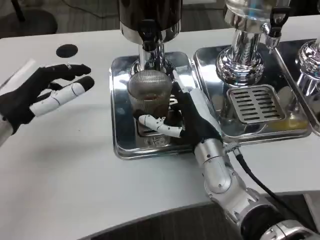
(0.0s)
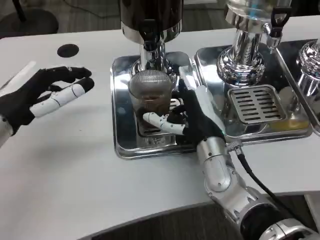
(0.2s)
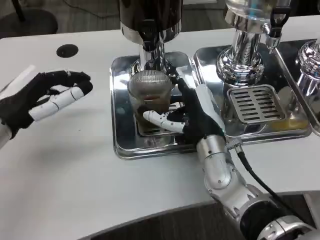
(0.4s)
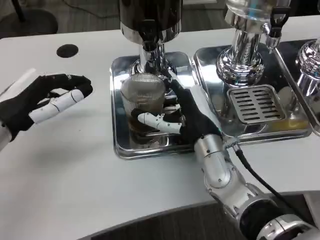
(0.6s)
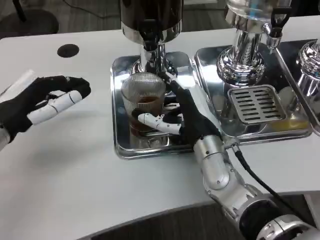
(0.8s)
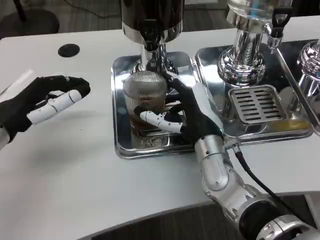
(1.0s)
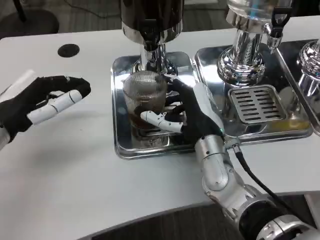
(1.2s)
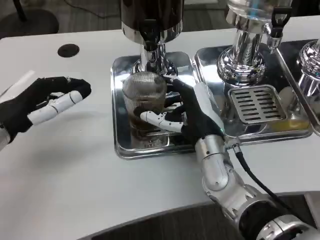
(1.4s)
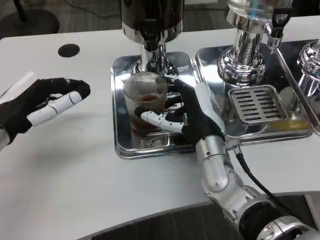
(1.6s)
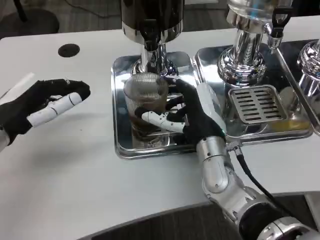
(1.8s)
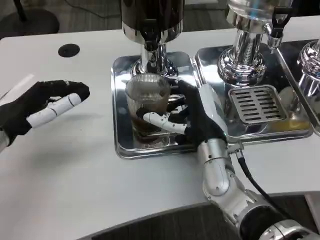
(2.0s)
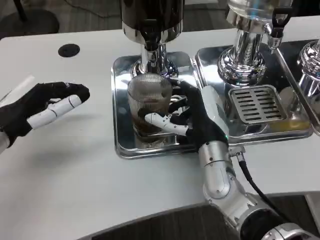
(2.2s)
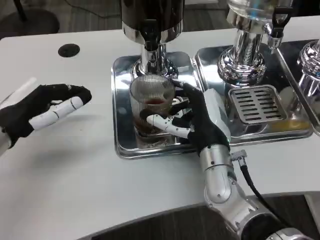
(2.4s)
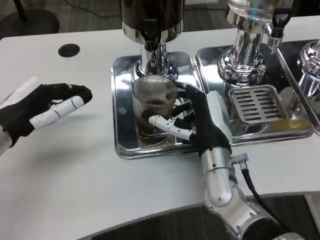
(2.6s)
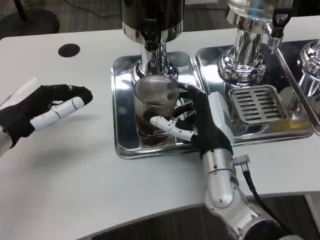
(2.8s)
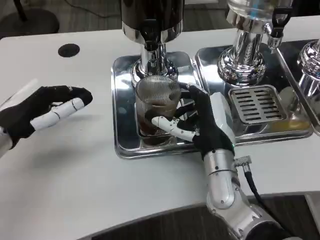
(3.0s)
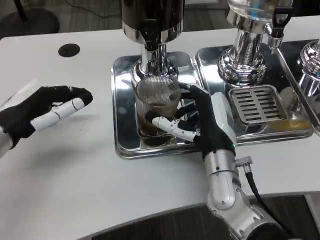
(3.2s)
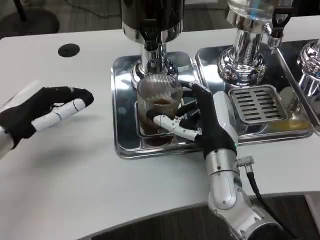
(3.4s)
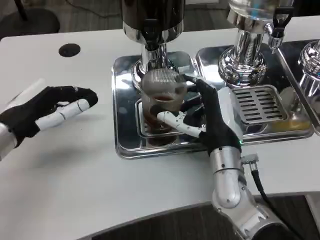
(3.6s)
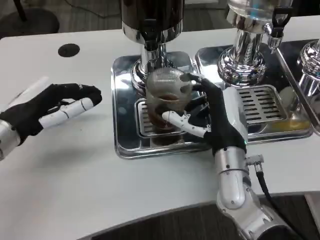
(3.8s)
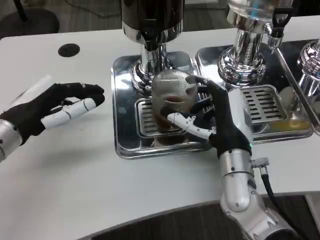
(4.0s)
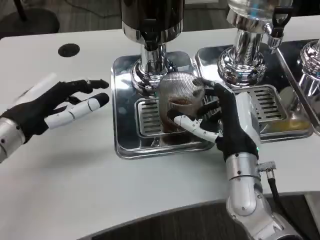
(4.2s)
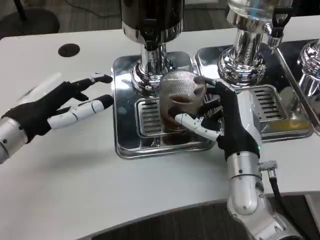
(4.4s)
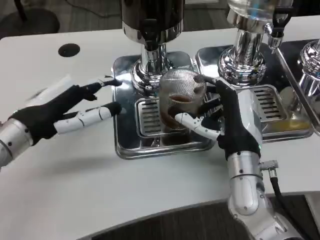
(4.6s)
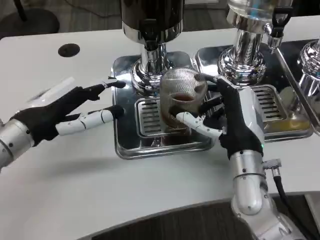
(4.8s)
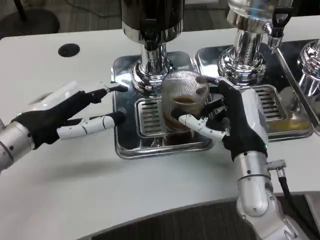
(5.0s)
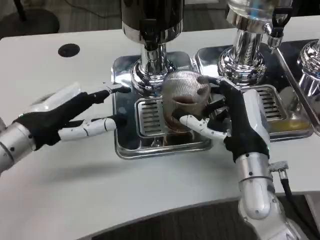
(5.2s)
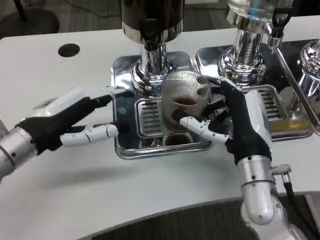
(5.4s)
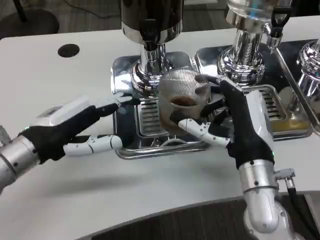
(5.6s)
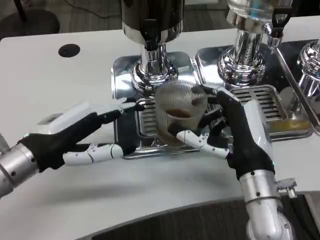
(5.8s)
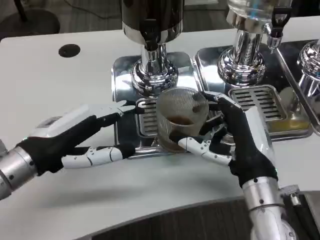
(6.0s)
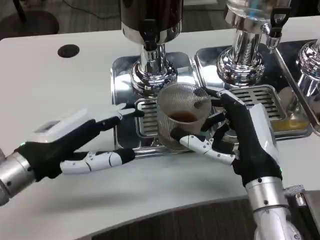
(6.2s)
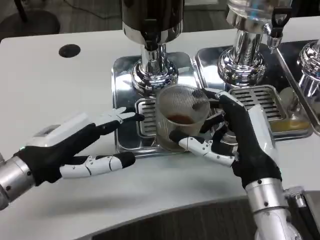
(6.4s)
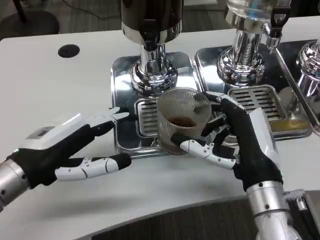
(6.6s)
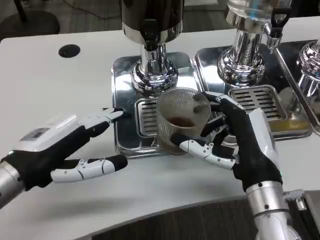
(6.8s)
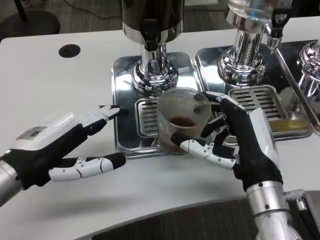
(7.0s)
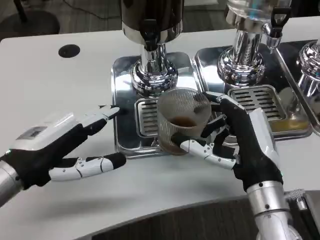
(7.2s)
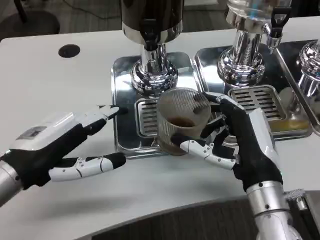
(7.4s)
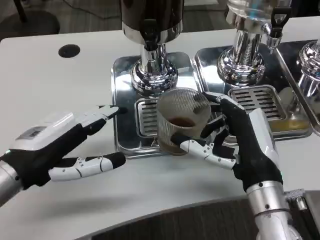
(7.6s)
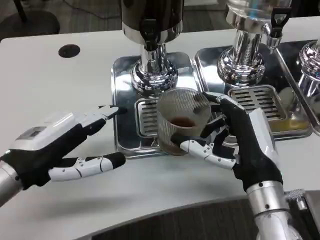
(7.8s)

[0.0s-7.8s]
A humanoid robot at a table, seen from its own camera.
Task of the whole recording: Grasp the cup under the faucet to collect the drink, then remove the cup.
0.0s to 3.2s: The hands move only a little.
4.6s to 6.2s: The right hand heads backward, covering some 5 cm.
6.2s to 7.8s: The hands make only small movements.

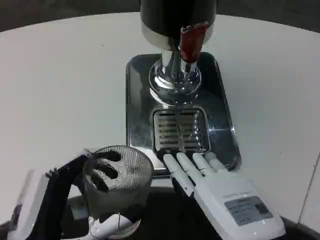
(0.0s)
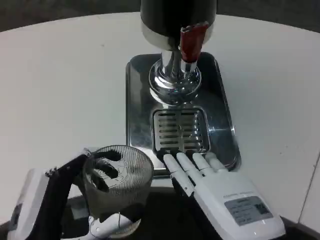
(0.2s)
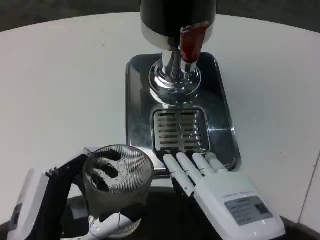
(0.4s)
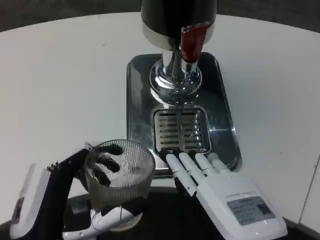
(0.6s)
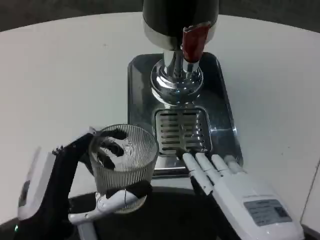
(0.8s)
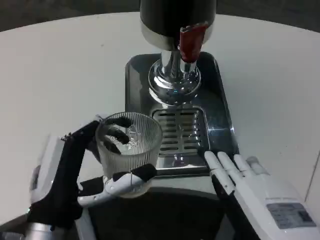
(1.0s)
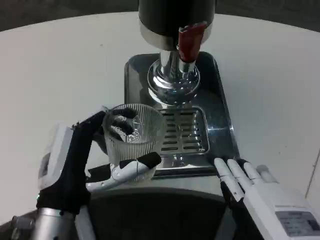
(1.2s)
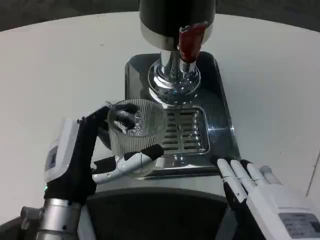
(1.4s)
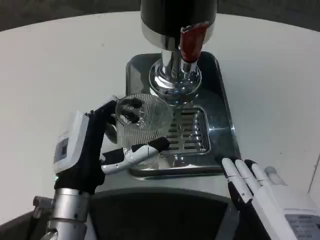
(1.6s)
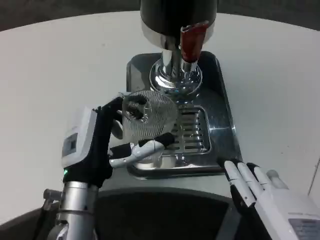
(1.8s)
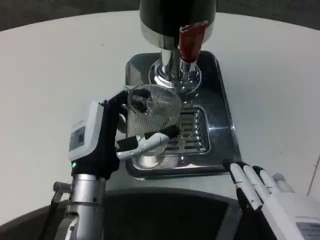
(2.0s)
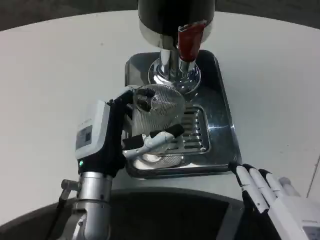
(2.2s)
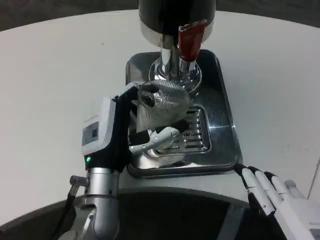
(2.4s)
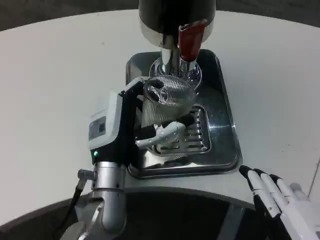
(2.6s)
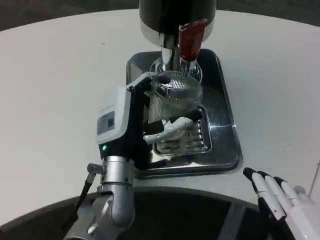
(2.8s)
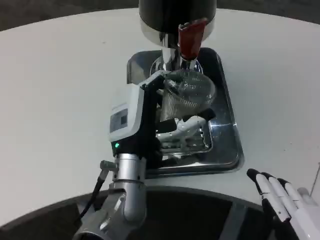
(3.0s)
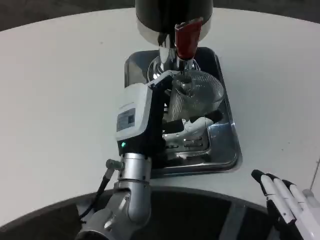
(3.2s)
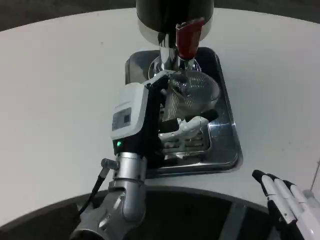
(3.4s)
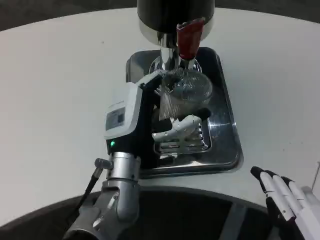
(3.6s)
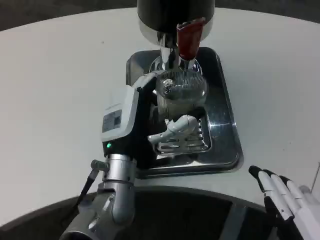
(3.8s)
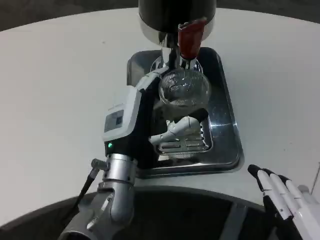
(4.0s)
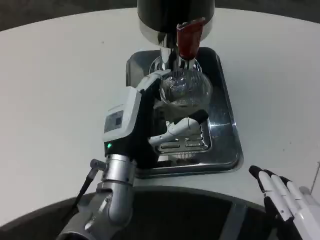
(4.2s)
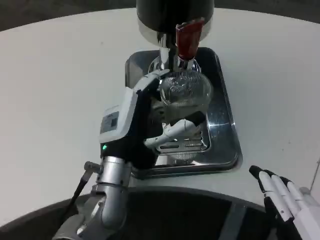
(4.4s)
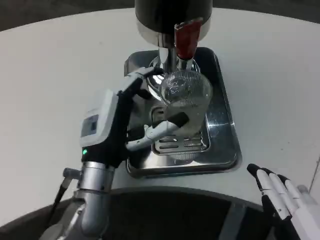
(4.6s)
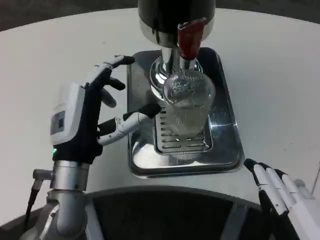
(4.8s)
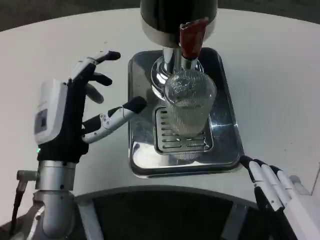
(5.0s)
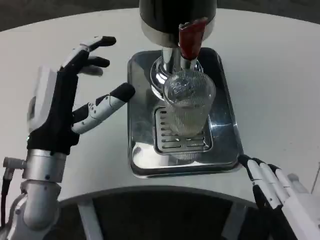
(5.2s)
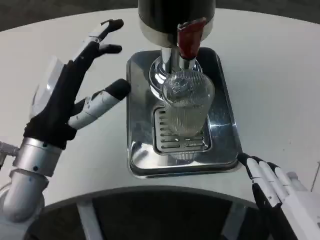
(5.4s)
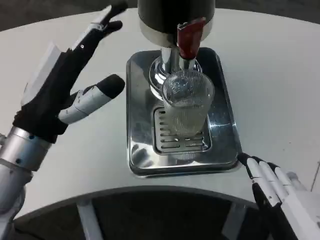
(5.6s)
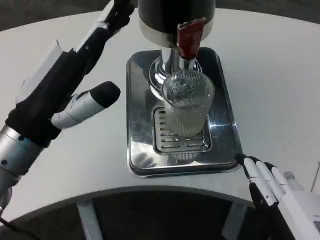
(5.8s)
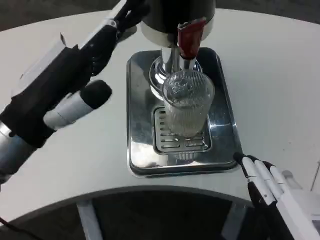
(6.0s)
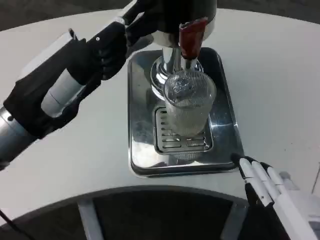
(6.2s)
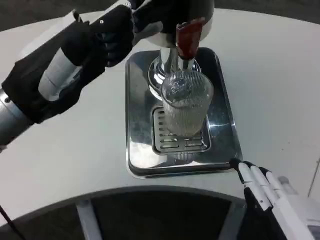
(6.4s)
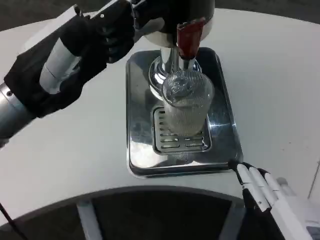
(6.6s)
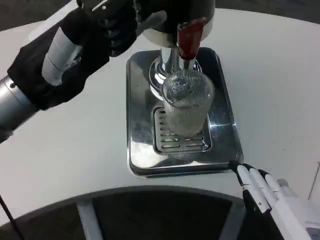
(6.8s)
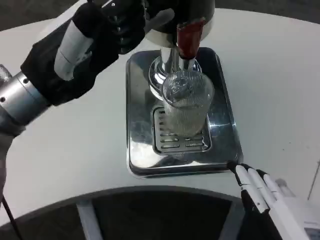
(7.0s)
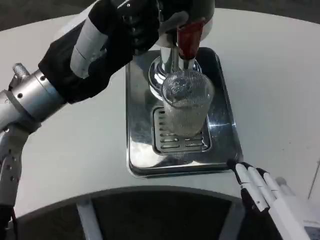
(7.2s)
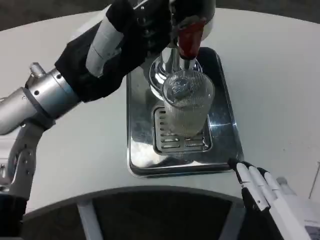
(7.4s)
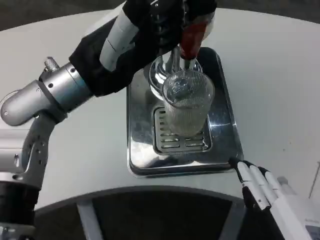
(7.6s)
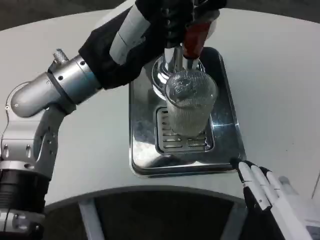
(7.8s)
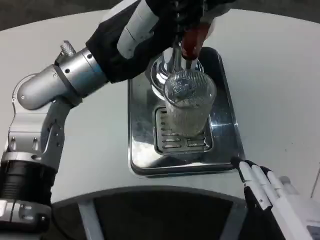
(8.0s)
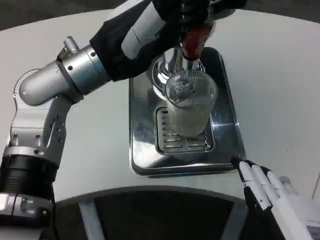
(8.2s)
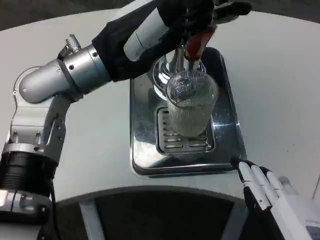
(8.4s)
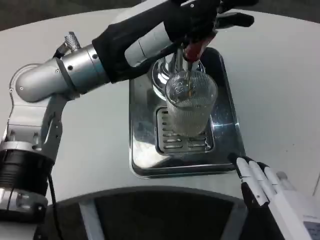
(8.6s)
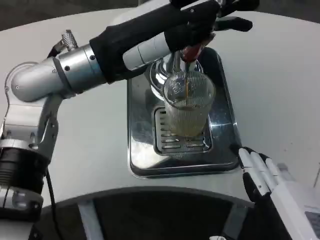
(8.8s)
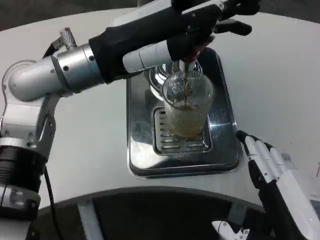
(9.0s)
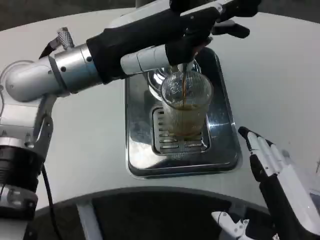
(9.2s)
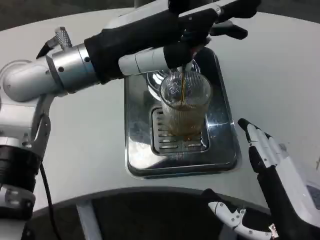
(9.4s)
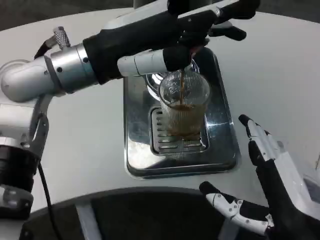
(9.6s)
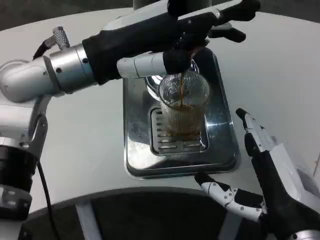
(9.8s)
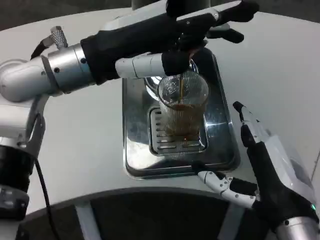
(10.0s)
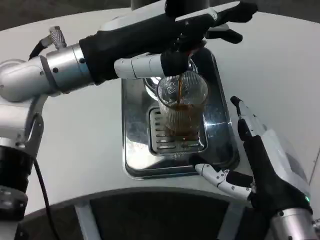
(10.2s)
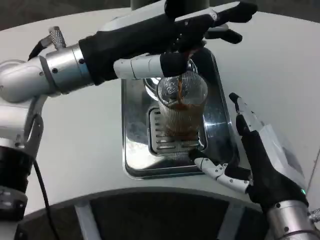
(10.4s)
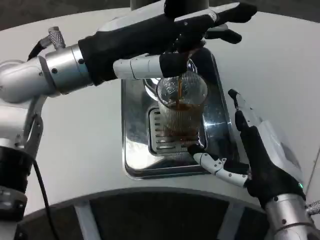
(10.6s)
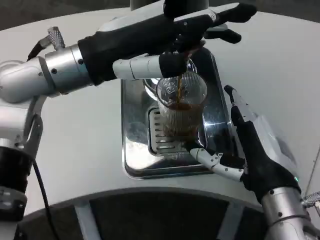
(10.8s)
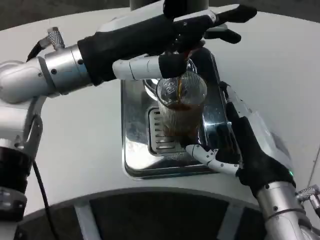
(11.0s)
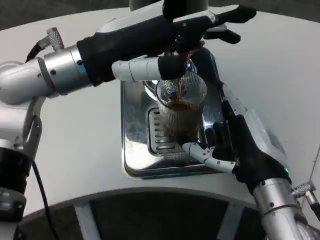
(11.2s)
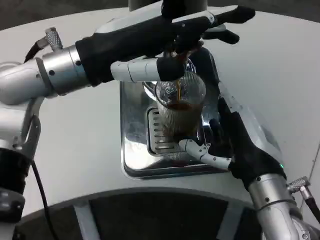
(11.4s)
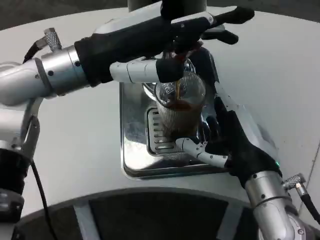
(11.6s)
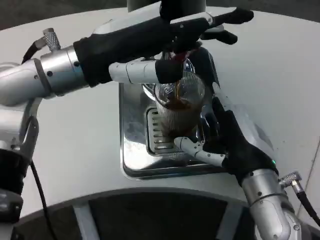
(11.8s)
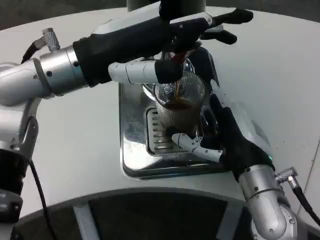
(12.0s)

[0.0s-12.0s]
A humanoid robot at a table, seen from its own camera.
Task of the whole recording: Grasp the cup under the faucet to collect the drink, then remove the cup.
0.0s to 1.6s: The left hand is displaced forward by roughly 10 cm.
1.6s to 3.0s: The left hand is displaced to the right and forward by roughly 10 cm.
3.0s to 4.4s: The hands move only a little.
4.4s to 6.0s: The left hand shifts about 20 cm upward, to the left and backward.
6.0s to 7.6s: The left hand is displaced forward by roughly 10 cm.
9.0s to 10.4s: The right hand goes about 10 cm forward.
10.4s to 12.0s: The right hand travels forward by roughly 5 cm.

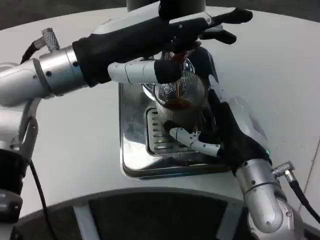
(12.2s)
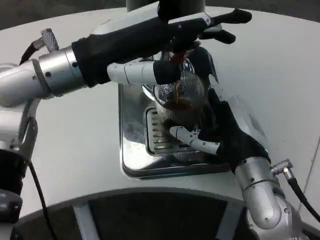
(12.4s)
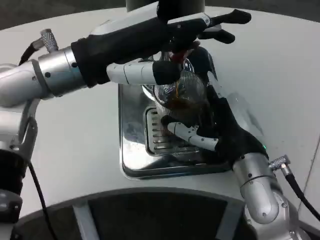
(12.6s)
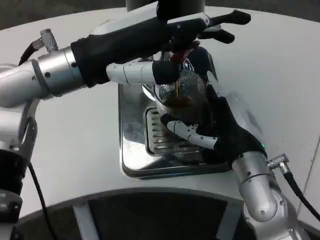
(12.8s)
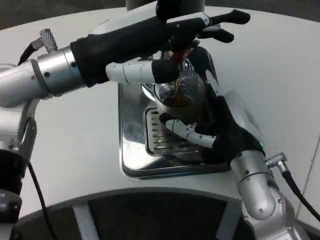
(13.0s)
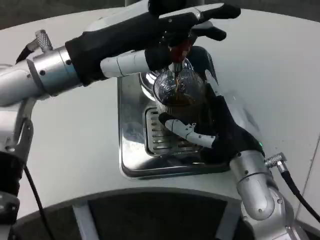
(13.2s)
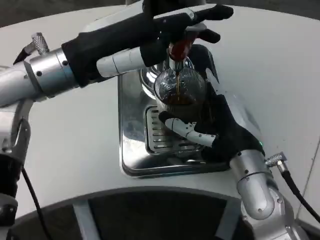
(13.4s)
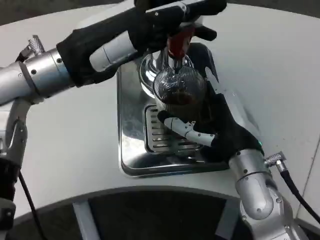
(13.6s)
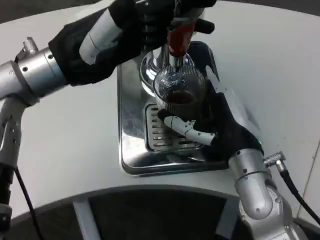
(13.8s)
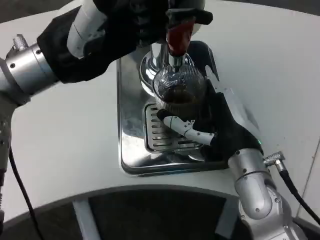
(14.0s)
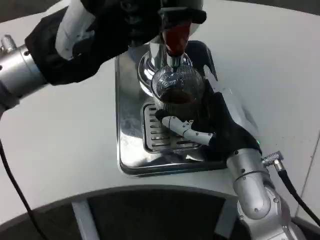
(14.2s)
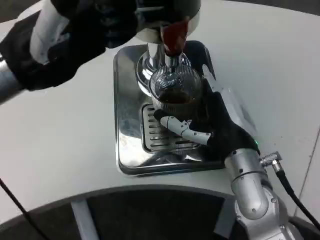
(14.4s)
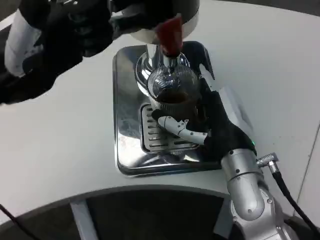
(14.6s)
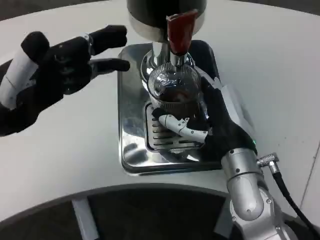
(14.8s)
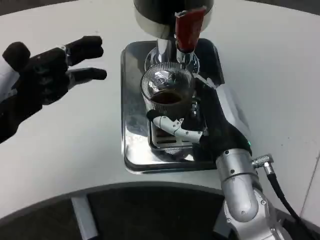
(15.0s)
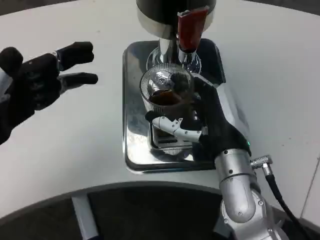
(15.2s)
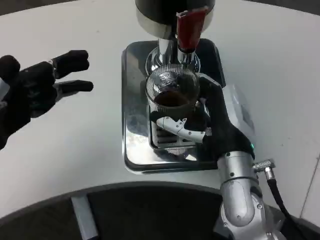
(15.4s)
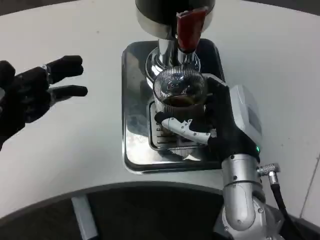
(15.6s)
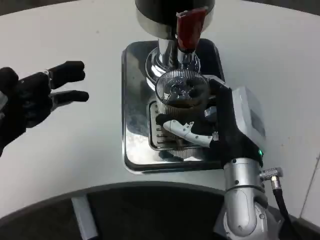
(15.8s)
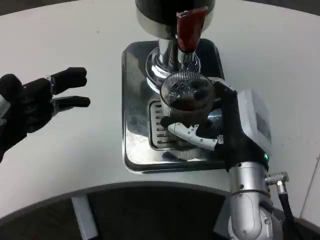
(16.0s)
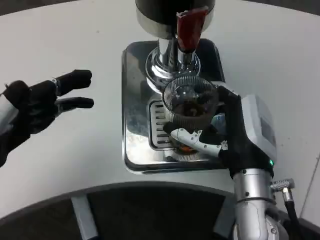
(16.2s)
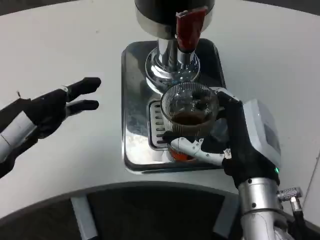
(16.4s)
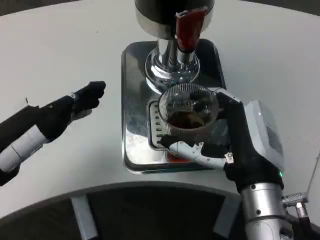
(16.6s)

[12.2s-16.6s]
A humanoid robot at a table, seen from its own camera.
Task of the whole recording: Grasp the cup under the faucet to collect the drink, then remove the cup.
13.6s to 15.2s: The left hand moves to the left, backward and downward, about 15 cm.
15.2s to 16.6s: The right hand goes about 5 cm backward.
